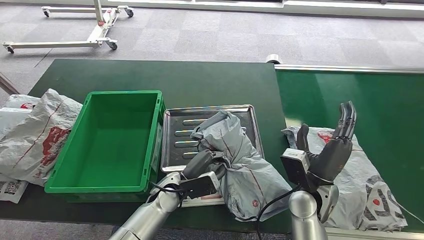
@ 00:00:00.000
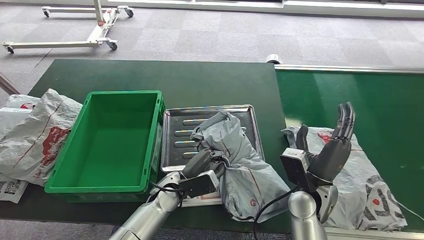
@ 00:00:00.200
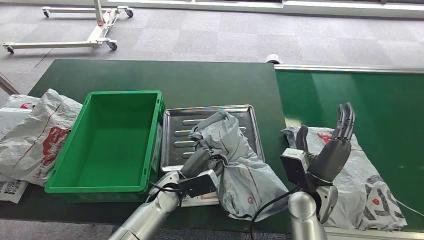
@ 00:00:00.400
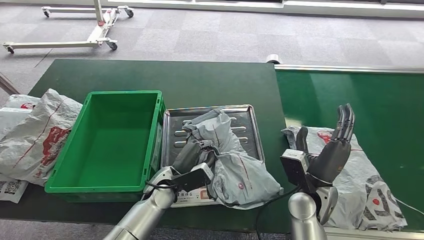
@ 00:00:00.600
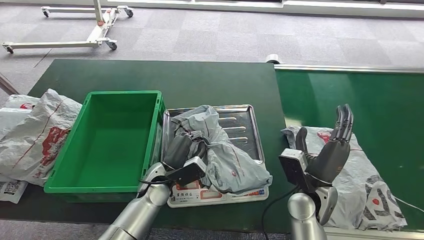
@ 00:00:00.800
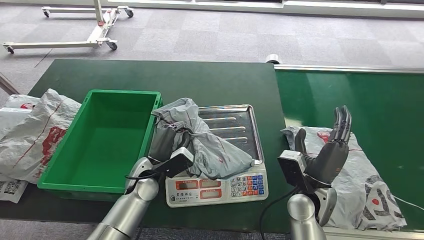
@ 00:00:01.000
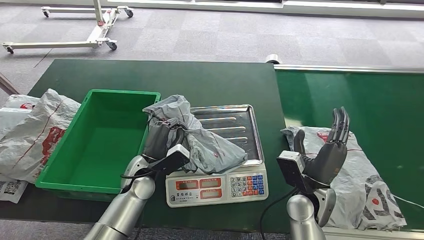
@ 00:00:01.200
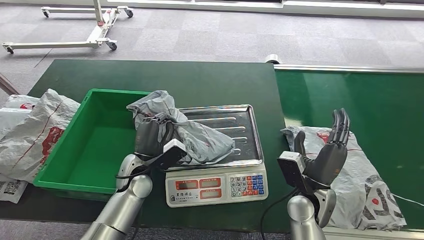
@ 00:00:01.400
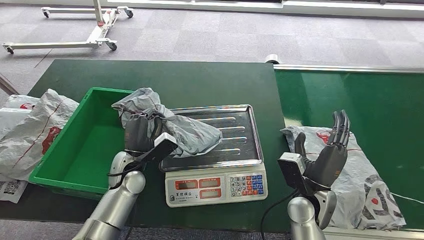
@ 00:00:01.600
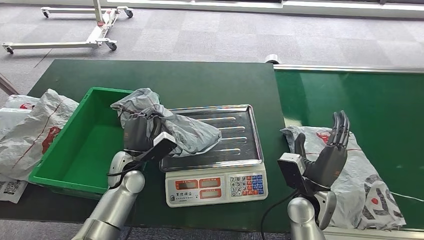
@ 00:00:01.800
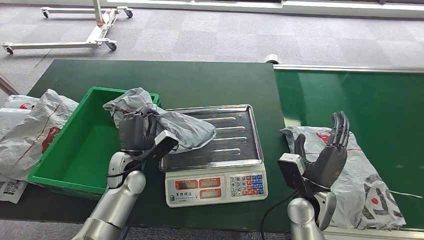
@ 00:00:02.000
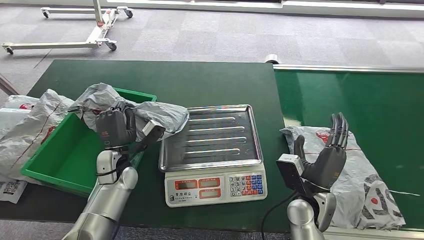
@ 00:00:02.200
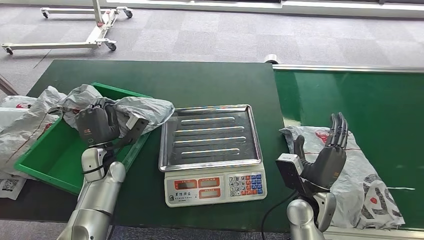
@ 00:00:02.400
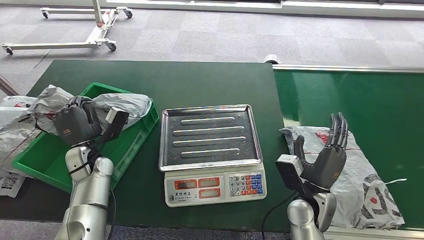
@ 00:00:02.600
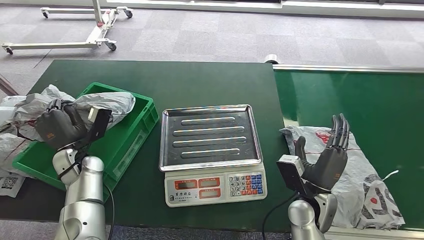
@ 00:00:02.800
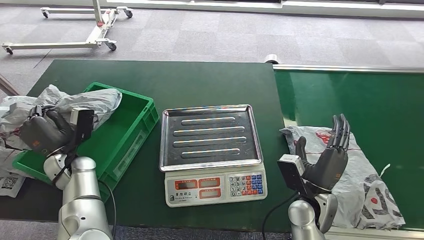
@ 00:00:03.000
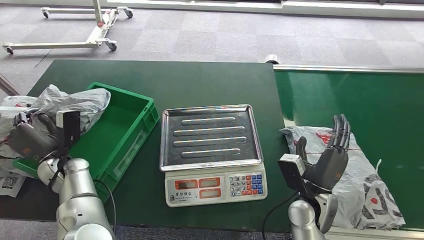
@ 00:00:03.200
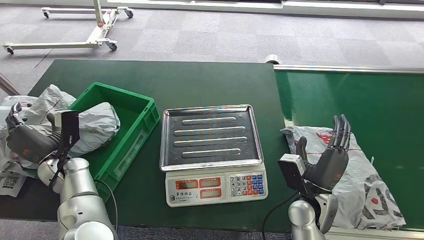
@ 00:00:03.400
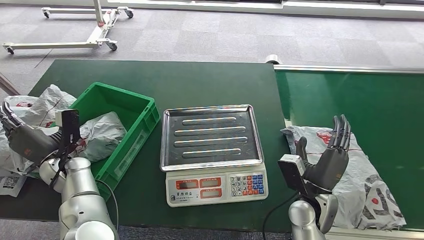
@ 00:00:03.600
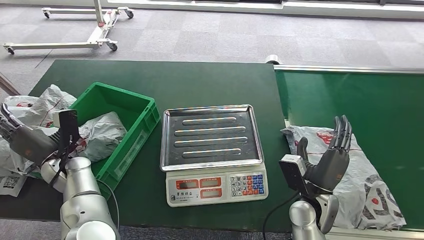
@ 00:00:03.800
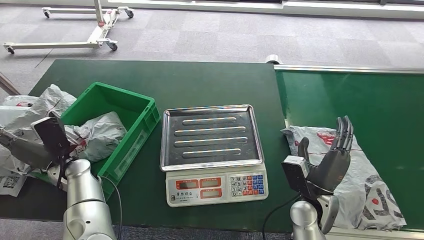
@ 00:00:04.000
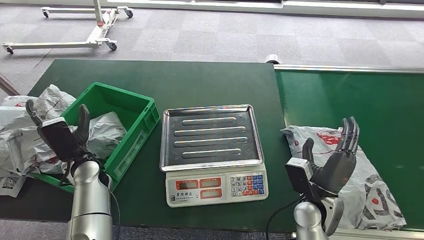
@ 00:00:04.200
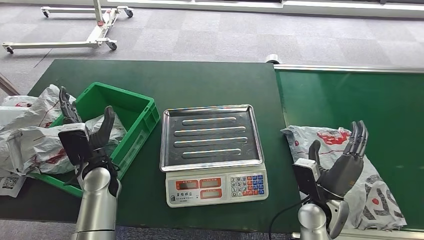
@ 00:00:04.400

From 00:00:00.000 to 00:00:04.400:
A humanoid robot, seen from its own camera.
Step, from 00:00:00.000 to 00:00:01.600: Pick up the package from the inbound machine.
Step, from 00:00:01.800 to 00:00:04.400: Place the package into the parcel locker.
From 00:00:00.000 to 00:00:01.400: The left hand moves to the left, roughly 10 cm.
From 00:00:03.000 to 00:00:04.400: The left hand shifts about 10 cm to the right.
